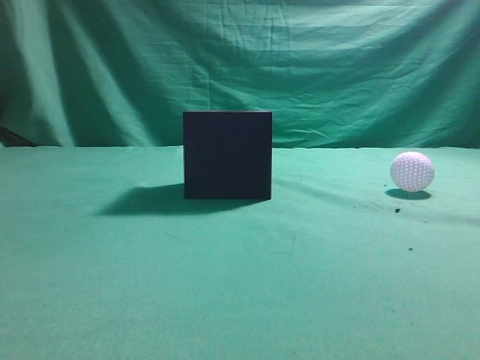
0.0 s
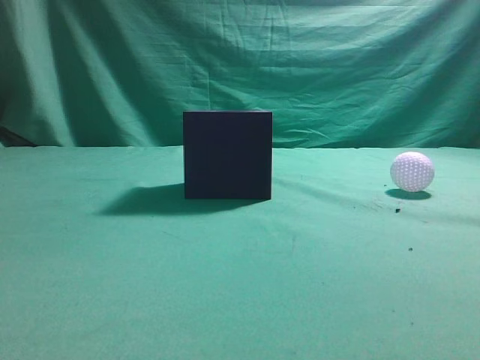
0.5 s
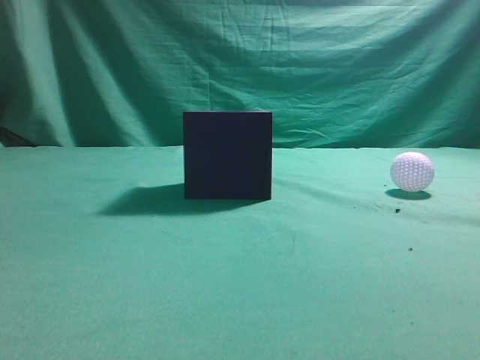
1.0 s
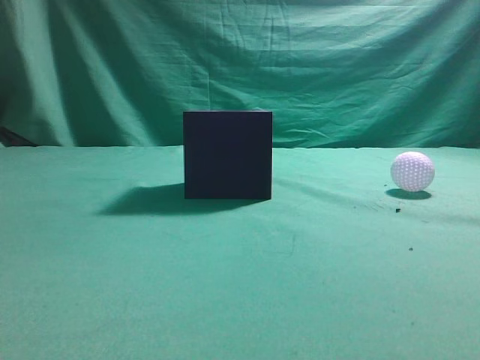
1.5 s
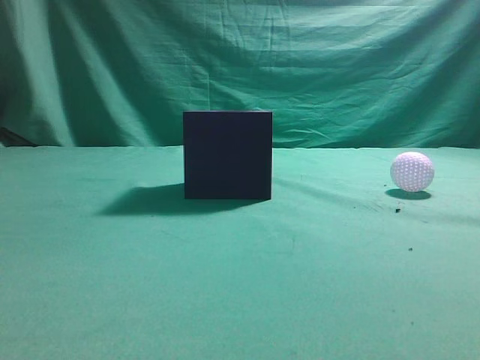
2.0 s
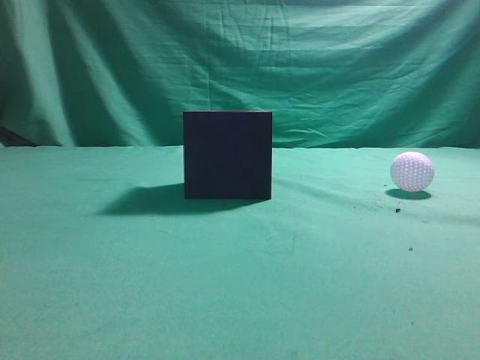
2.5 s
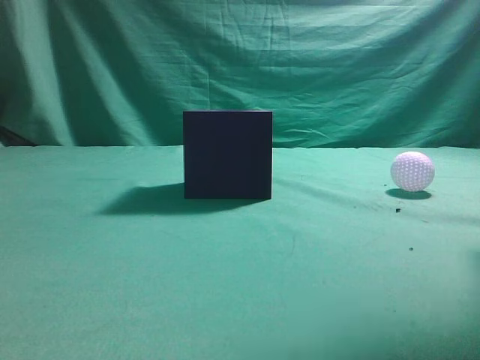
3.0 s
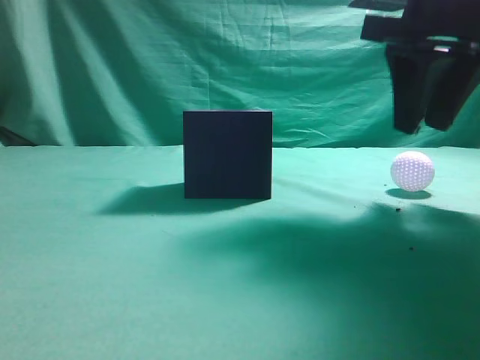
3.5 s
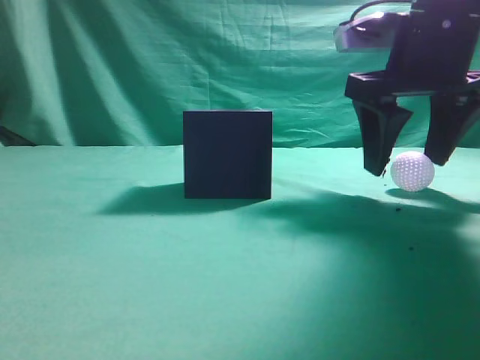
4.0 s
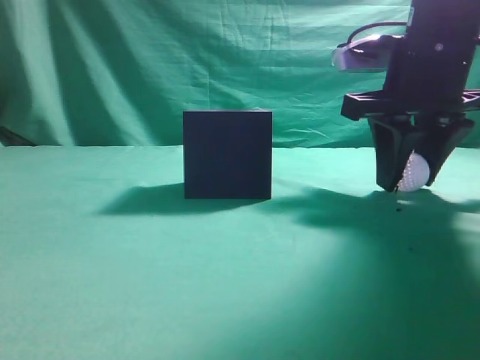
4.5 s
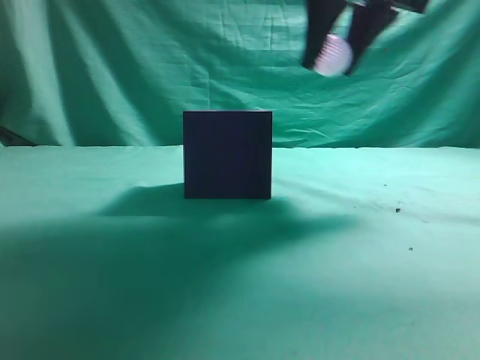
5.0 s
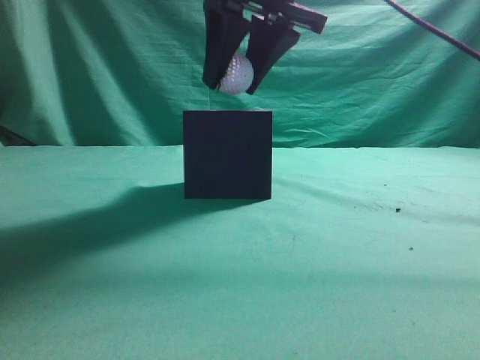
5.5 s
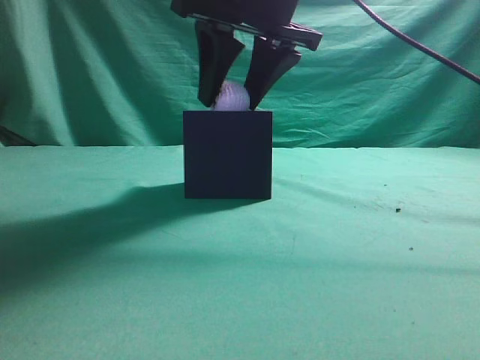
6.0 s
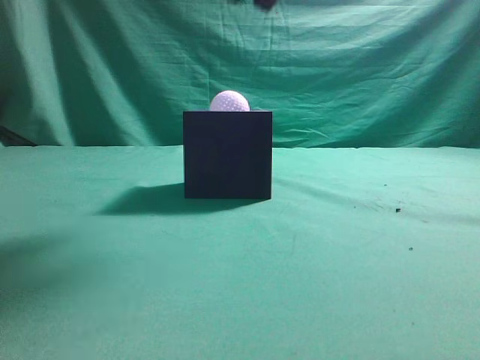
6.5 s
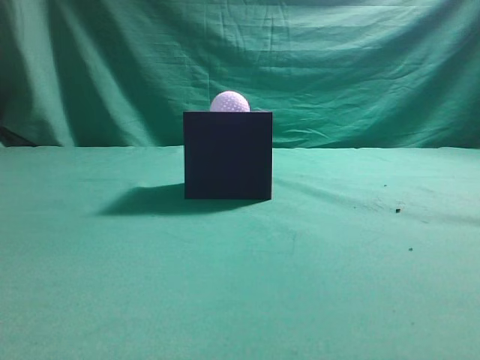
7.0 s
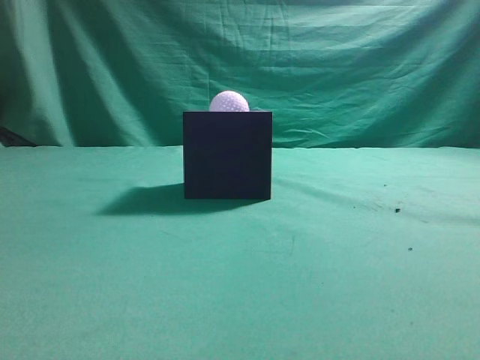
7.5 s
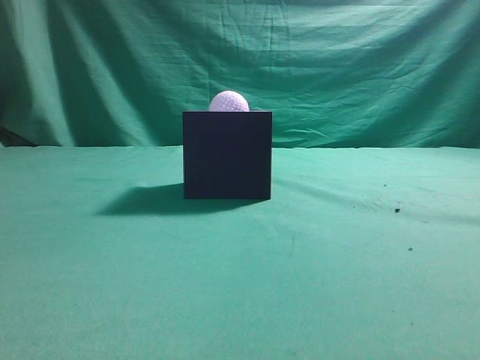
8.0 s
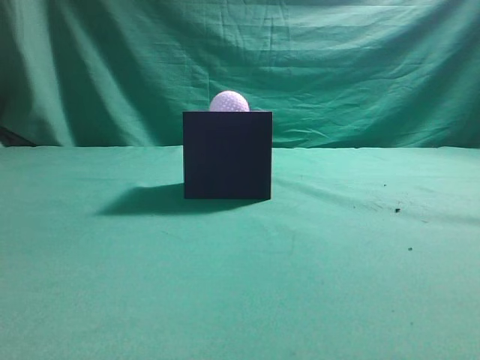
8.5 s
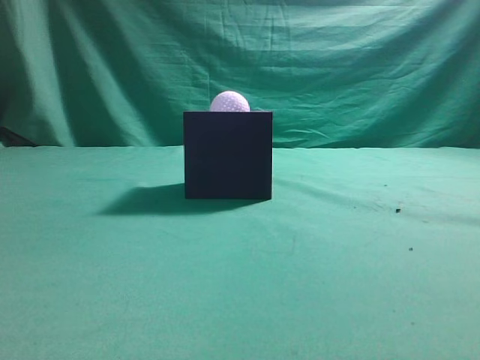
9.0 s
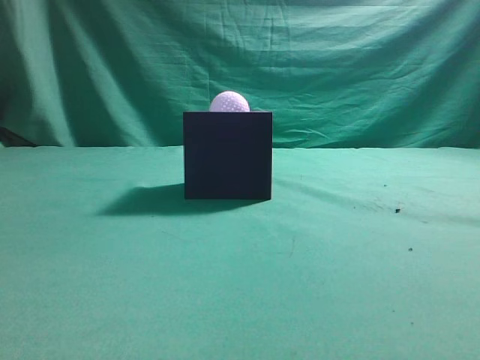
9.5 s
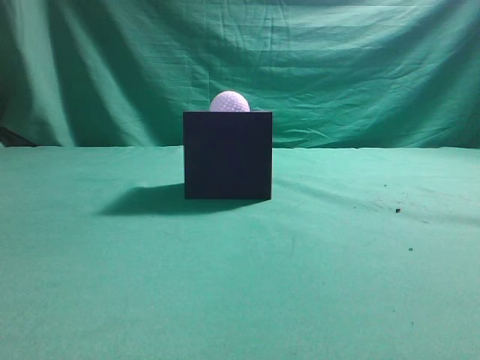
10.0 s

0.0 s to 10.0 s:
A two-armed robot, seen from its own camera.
Task of the whole recording: Pick up the ball and place it in the circular groove above the cube.
Step, 0.0 to 4.5 s: Grasp the sphere on the table.
Step, 5.0 to 6.0 s: Place the sphere into the sphere-shaped recess.
2.0 to 4.0 s: The right gripper shifts about 30 cm forward and to the left, and opens.
4.0 to 6.0 s: The right gripper moves to the left and upward, some 15 cm.
6.0 to 8.0 s: The right gripper heads backward and to the right, covering some 40 cm, and closes its fingers.
